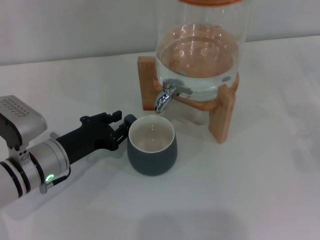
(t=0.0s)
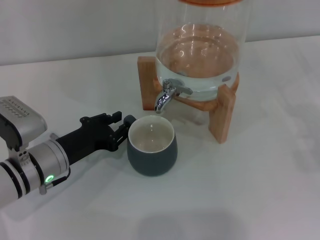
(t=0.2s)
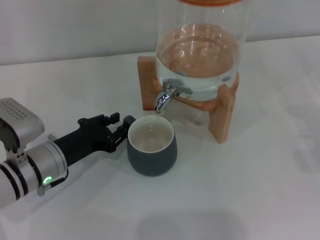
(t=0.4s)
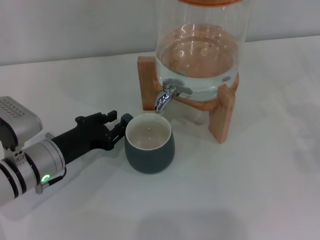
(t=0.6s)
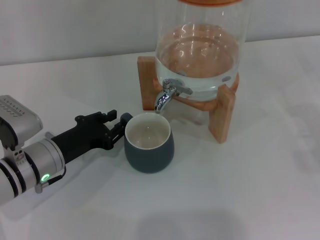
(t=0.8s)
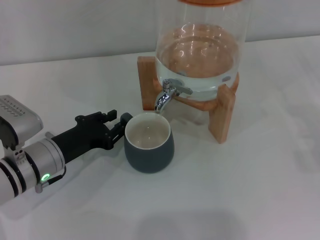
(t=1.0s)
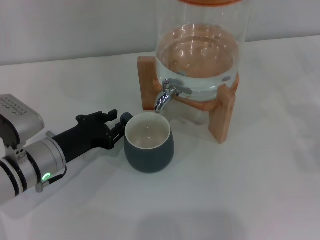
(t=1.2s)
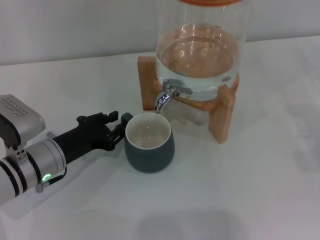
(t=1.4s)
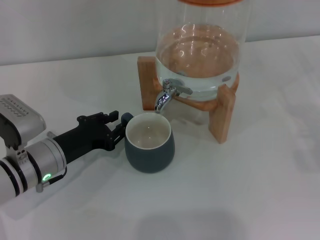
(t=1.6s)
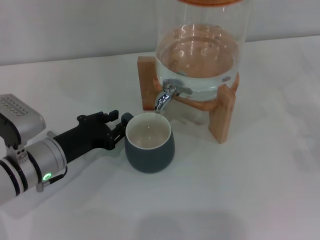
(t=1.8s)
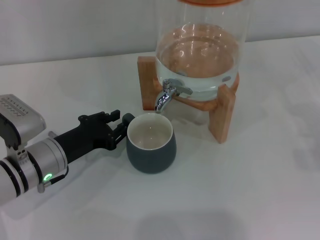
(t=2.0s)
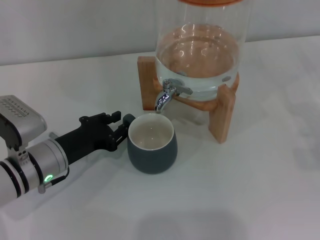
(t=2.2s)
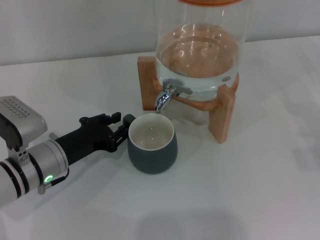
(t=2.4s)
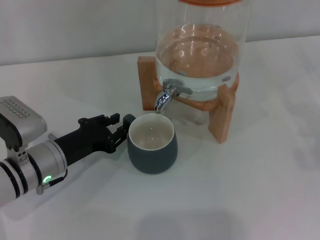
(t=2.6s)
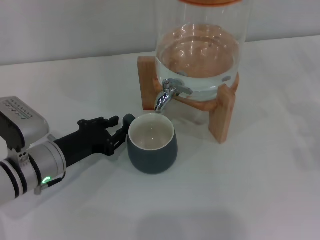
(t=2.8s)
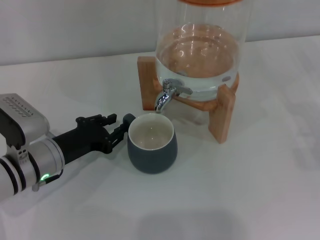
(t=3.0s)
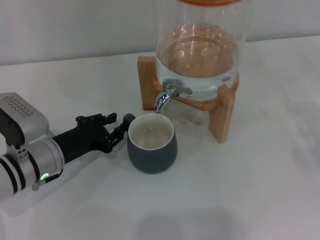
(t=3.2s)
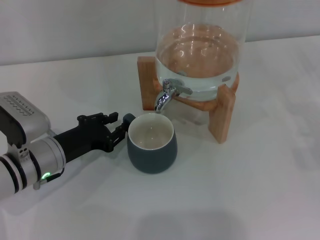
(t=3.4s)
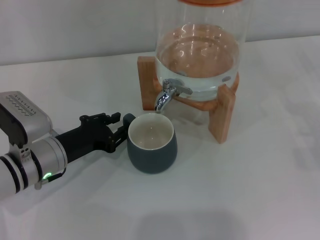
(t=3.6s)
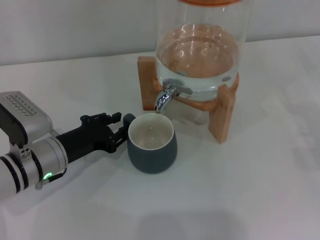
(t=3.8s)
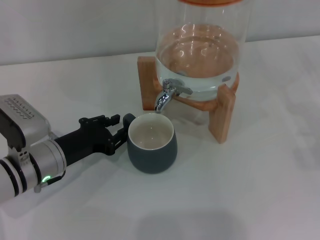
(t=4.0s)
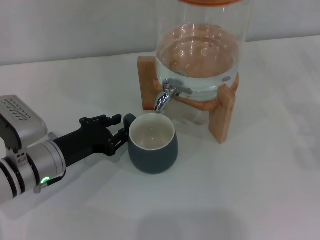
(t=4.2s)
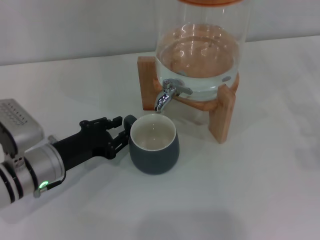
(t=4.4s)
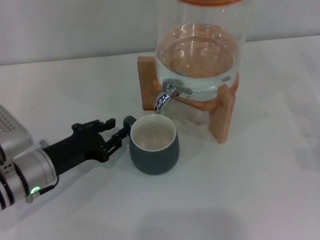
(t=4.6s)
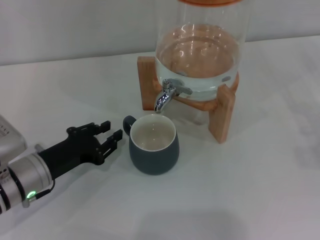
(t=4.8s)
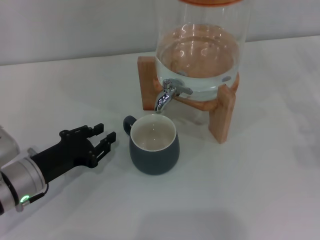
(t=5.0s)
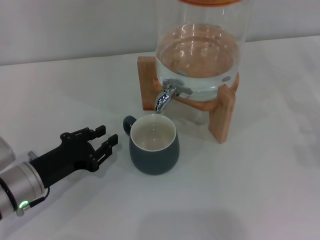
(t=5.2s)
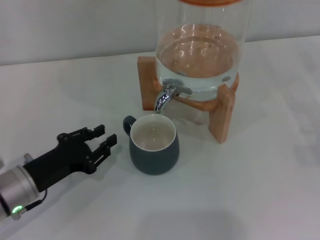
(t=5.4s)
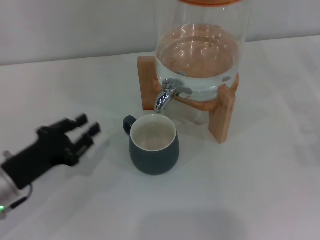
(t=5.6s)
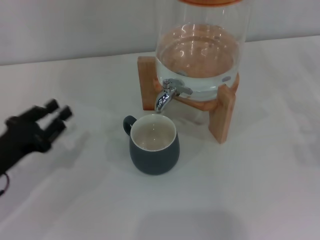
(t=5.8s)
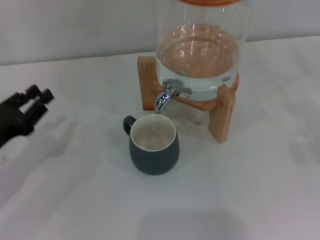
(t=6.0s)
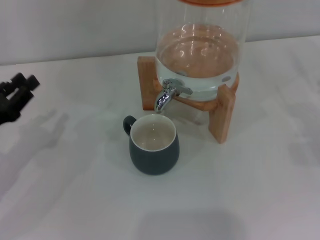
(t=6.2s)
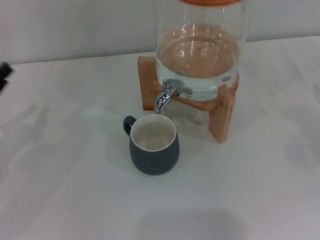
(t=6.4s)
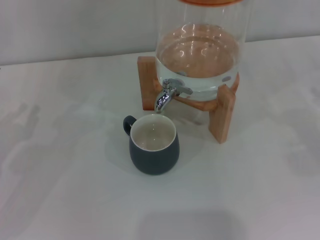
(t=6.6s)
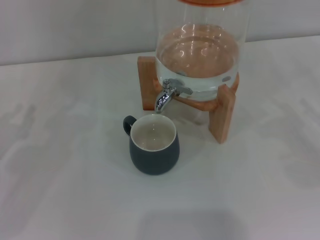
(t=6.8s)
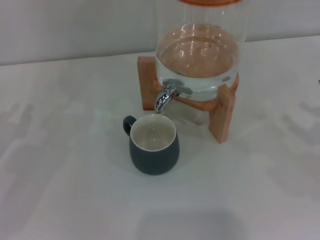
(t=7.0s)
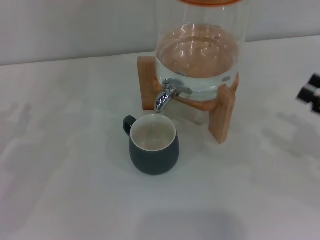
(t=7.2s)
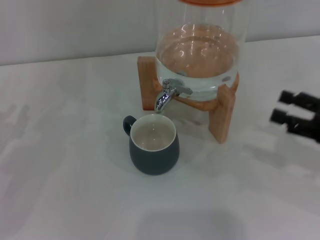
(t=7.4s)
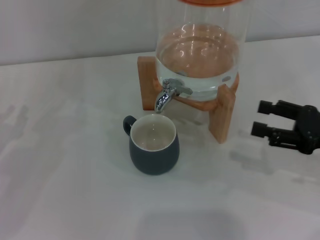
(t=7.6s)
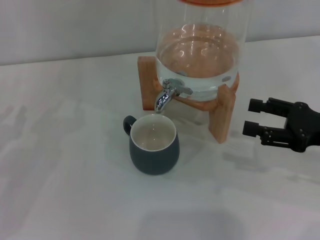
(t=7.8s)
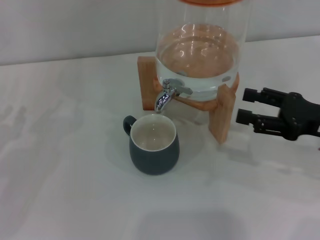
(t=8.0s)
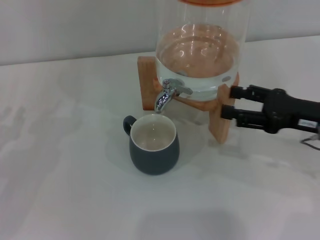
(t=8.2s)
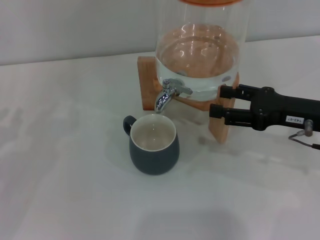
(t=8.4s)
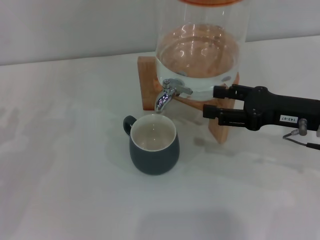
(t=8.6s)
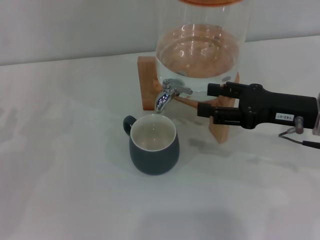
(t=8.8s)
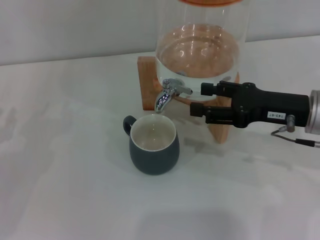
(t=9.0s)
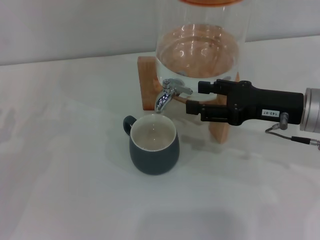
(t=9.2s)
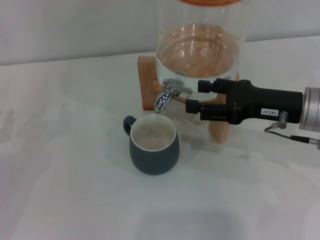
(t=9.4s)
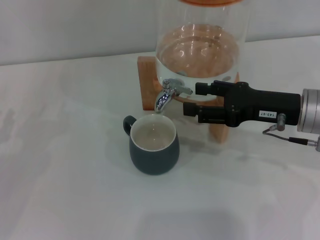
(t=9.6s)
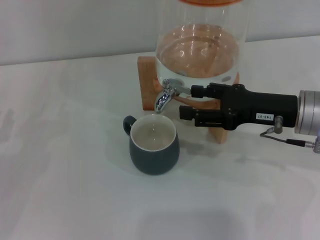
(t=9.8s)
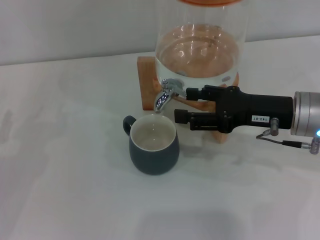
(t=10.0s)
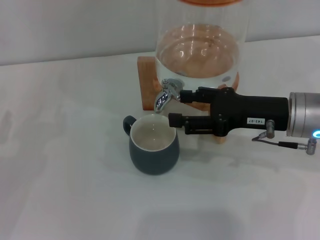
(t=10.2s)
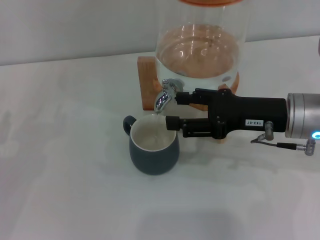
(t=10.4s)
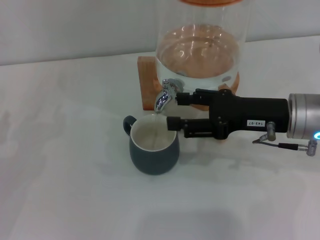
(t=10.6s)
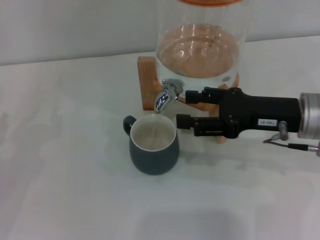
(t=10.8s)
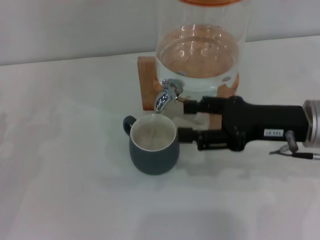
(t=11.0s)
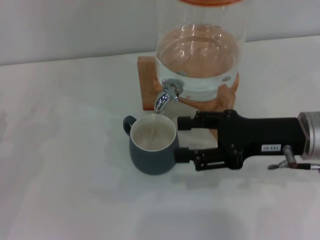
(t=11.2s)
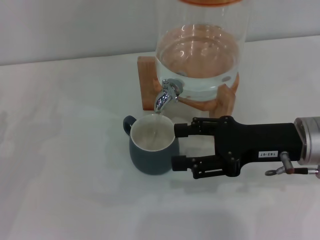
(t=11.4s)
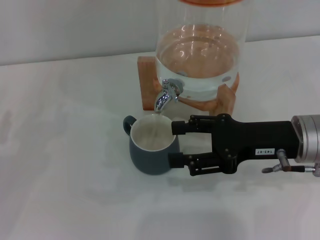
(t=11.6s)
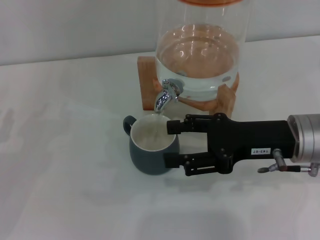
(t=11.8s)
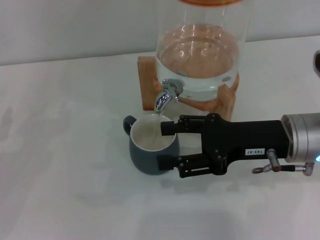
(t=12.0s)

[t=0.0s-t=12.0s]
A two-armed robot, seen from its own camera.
Task of the whole recording: the left gripper pick up the black cup and place it horizontally under the faucet, the right gripper turn on the faucet to fill the cup, and then turn off the faucet.
Step, t=0.0s to t=4.6s: Move the cup beneath the water dispenser nozzle with the left gripper.
t=0.0s to t=1.6s: Neither gripper changes place.
t=1.6s to t=3.0s: Both grippers stay put.
t=3.0s to t=4.4s: The two grippers keep their place.
t=4.4s to t=6.0s: The left gripper moves to the left, approximately 10 cm.
t=6.0s to t=7.6s: The right gripper heads to the left, covering approximately 10 cm.
t=7.6s to t=9.0s: The right gripper moves to the left and forward, approximately 10 cm.
t=9.0s to t=12.0s: The grippers stay close to where they were, moving slightly.

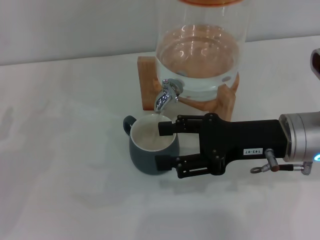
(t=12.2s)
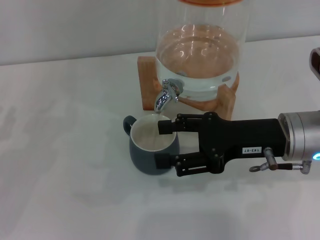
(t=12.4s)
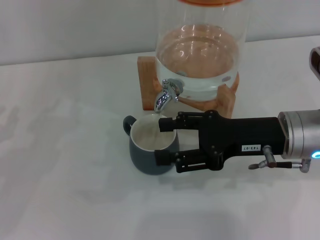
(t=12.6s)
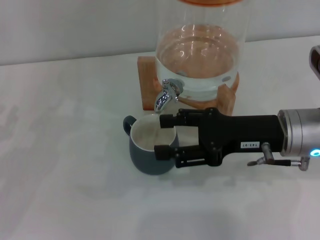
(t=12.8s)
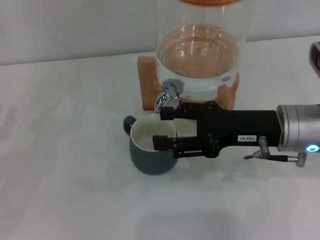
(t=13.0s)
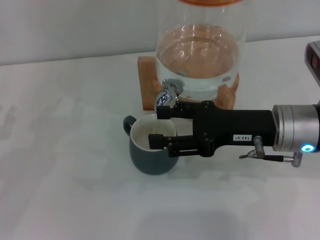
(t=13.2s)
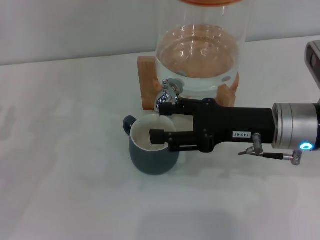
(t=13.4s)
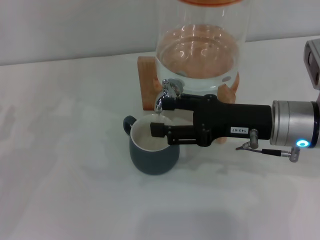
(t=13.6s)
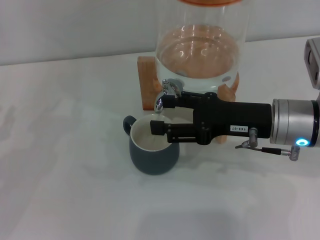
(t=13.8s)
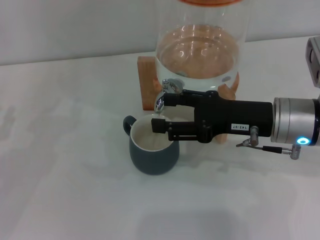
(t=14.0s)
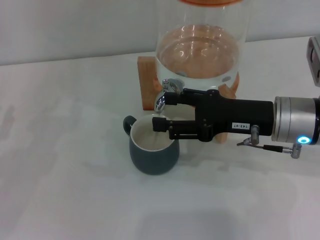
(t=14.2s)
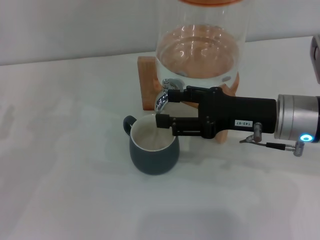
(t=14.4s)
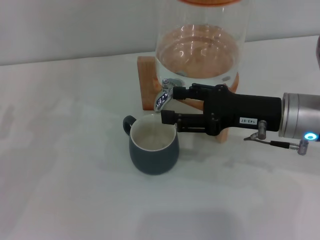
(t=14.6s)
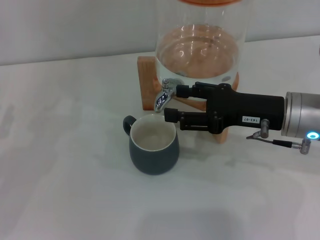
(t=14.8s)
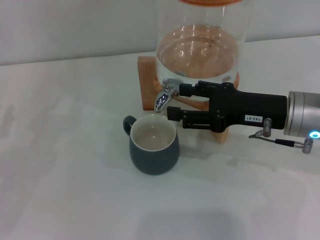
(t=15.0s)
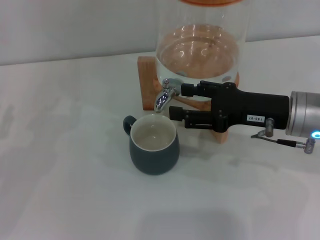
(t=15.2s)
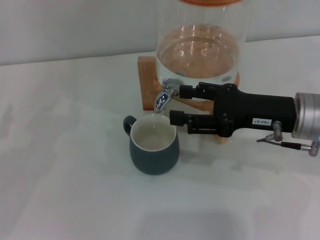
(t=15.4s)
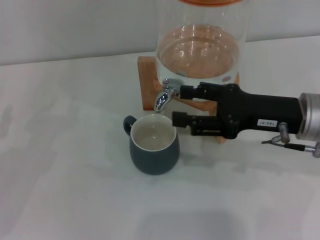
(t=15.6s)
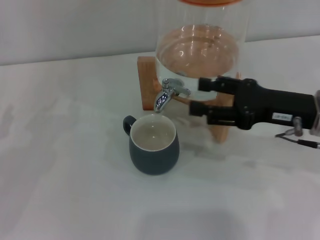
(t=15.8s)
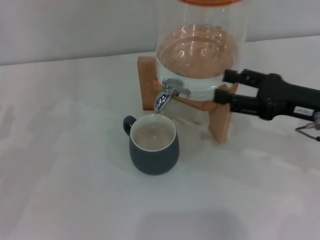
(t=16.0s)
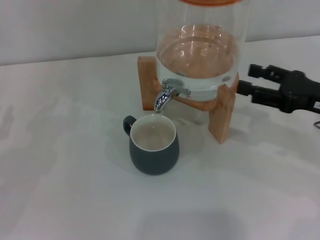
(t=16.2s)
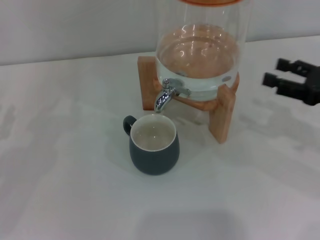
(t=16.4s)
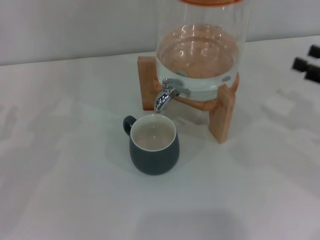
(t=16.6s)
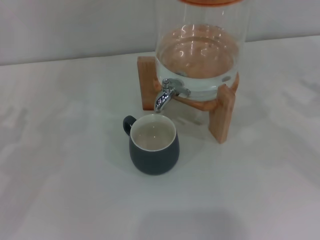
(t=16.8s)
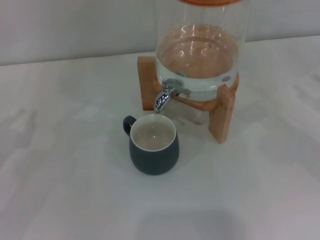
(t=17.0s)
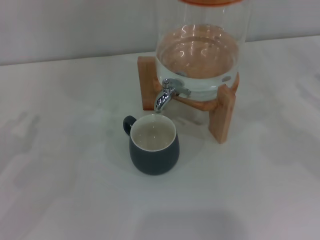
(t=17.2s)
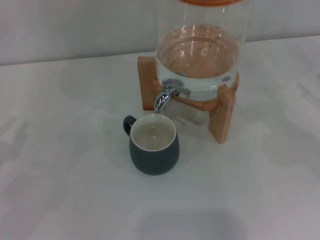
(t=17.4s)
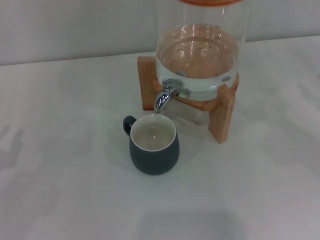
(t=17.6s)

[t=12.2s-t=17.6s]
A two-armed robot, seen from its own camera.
Task of the whole recording: the left gripper pick up the black cup and place it horizontally under the faucet, the right gripper turn on the faucet to fill the cup, and then turn off the faucet.
Step, t=12.4s to t=15.6s: Close the dispenser valve with the right gripper.
t=12.2s to t=15.0s: The grippers make only small movements.
t=15.0s to t=16.2s: The right gripper heads to the right, covering approximately 10 cm.
t=16.2s to t=17.6s: The right gripper heads to the right, covering some 10 cm.
